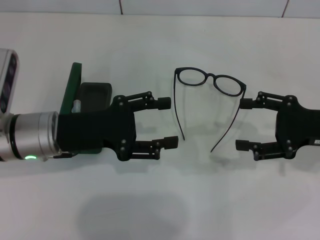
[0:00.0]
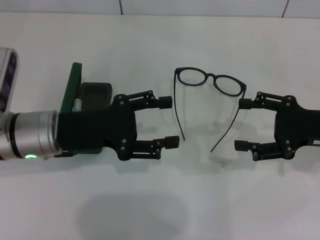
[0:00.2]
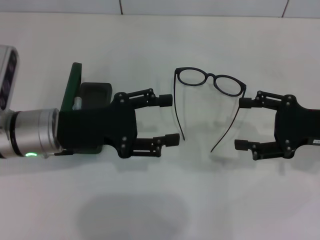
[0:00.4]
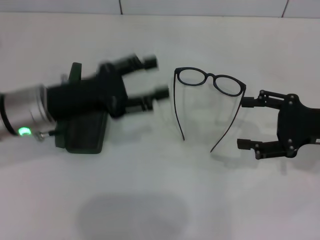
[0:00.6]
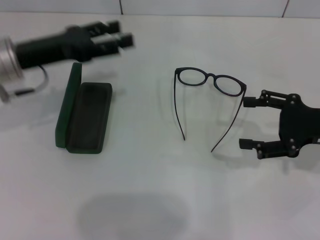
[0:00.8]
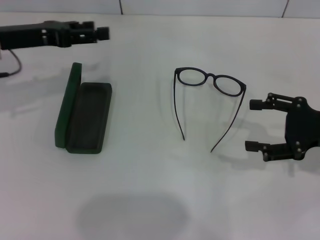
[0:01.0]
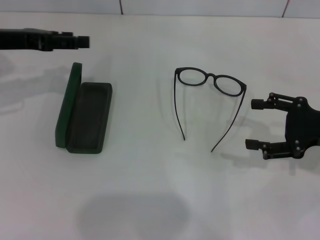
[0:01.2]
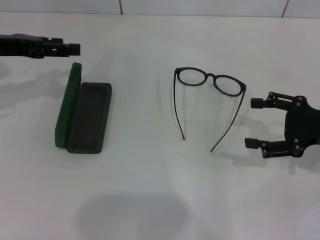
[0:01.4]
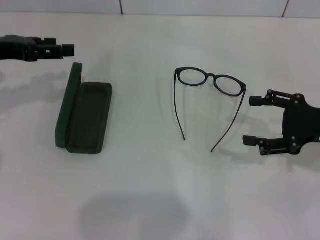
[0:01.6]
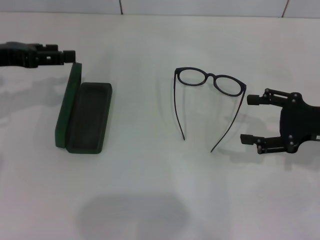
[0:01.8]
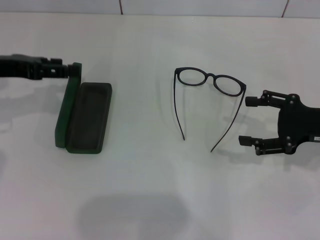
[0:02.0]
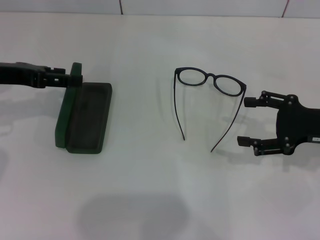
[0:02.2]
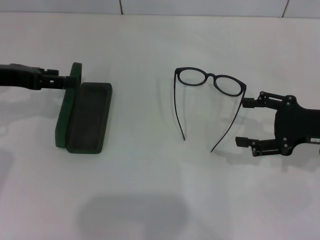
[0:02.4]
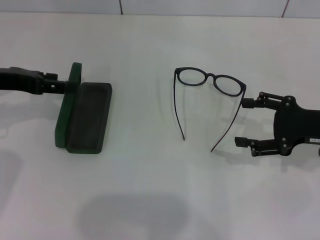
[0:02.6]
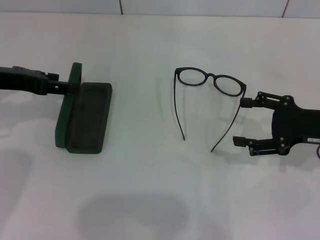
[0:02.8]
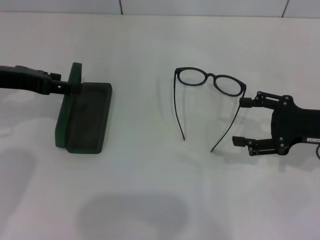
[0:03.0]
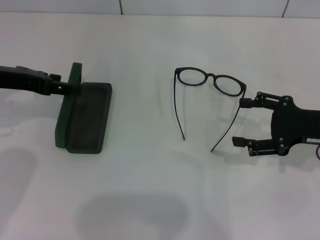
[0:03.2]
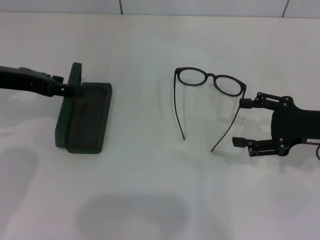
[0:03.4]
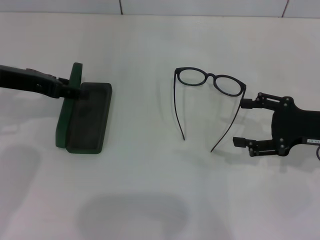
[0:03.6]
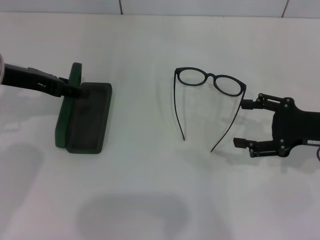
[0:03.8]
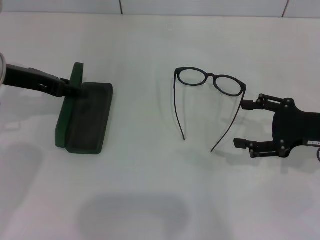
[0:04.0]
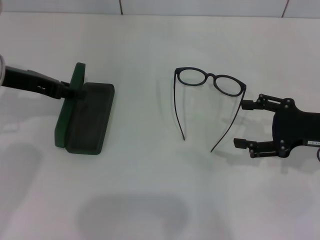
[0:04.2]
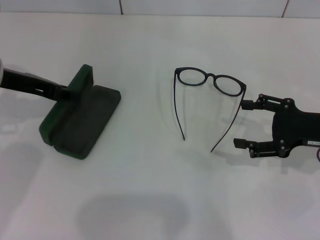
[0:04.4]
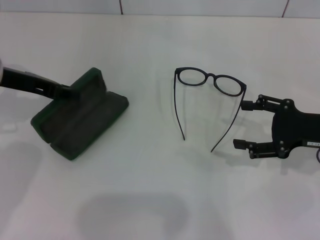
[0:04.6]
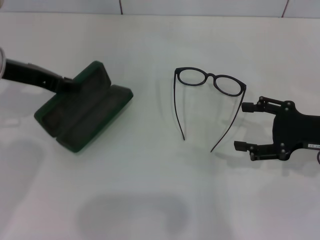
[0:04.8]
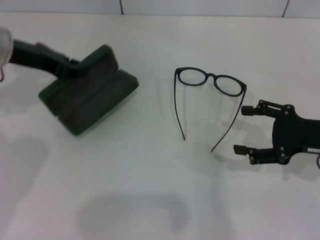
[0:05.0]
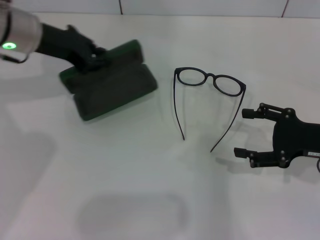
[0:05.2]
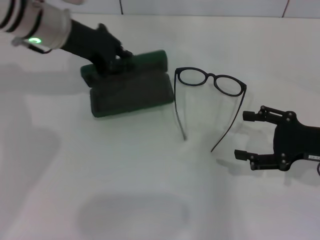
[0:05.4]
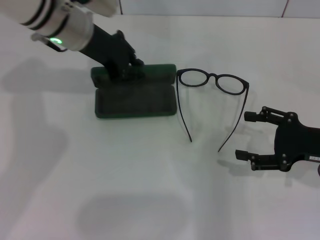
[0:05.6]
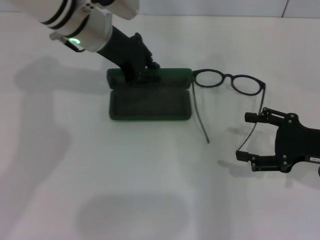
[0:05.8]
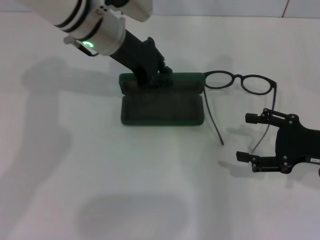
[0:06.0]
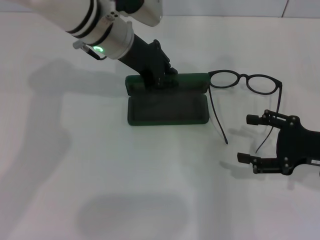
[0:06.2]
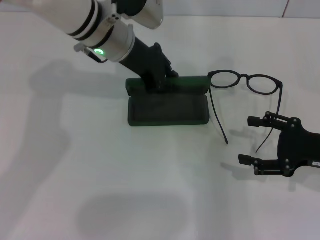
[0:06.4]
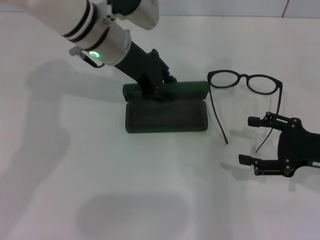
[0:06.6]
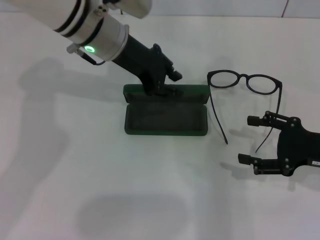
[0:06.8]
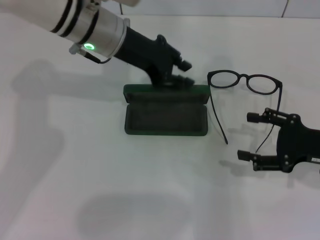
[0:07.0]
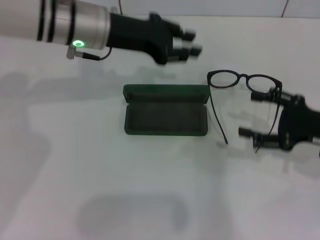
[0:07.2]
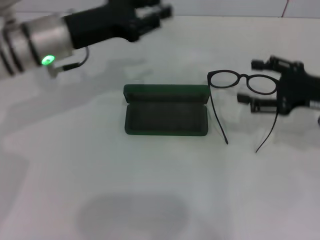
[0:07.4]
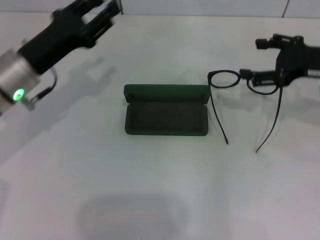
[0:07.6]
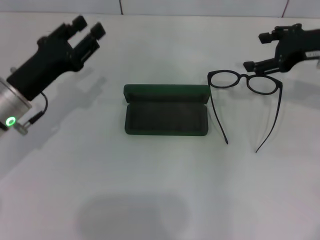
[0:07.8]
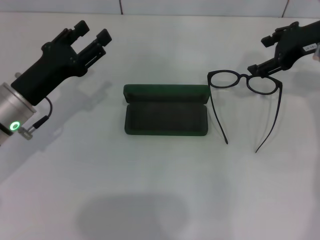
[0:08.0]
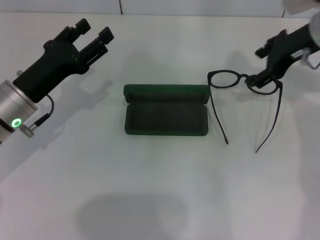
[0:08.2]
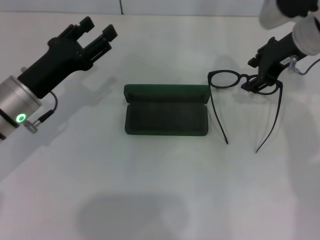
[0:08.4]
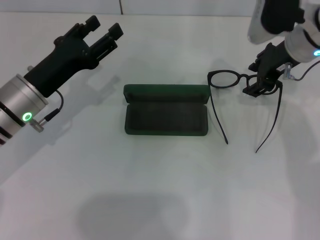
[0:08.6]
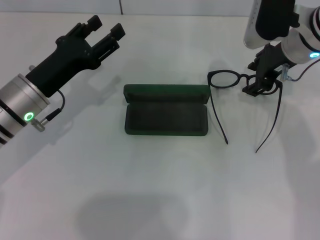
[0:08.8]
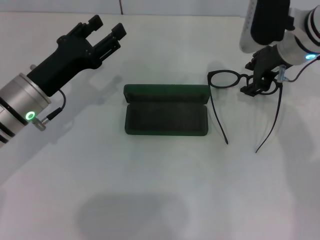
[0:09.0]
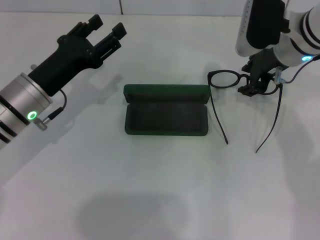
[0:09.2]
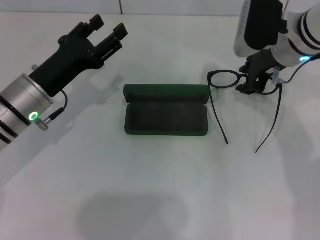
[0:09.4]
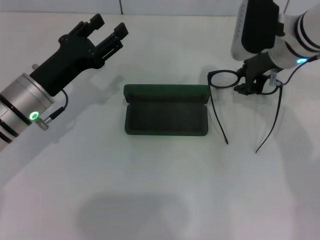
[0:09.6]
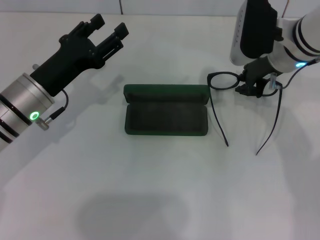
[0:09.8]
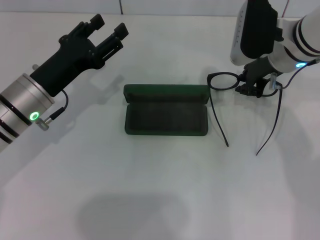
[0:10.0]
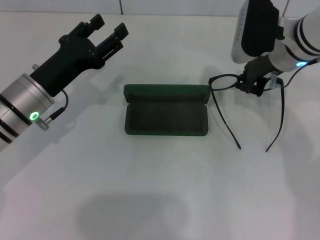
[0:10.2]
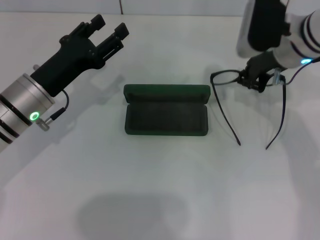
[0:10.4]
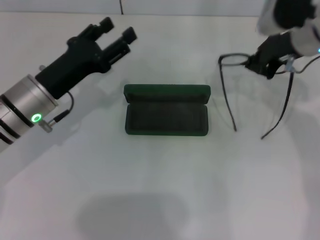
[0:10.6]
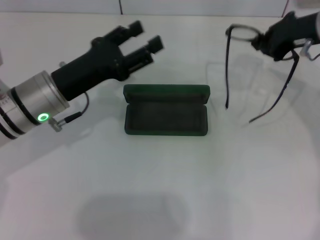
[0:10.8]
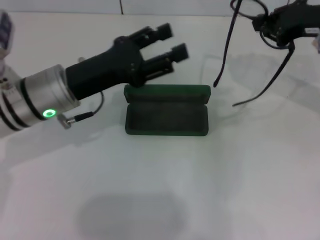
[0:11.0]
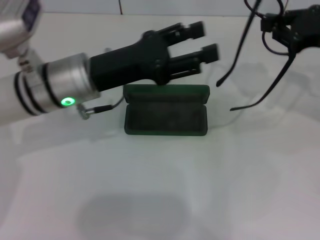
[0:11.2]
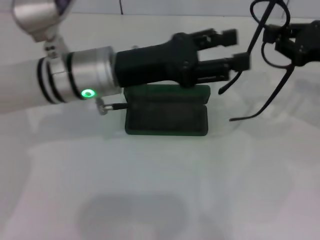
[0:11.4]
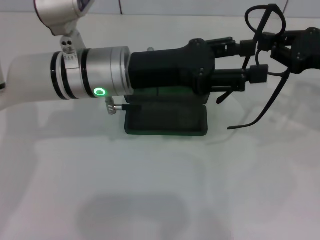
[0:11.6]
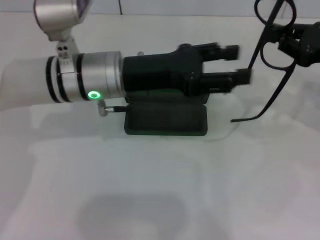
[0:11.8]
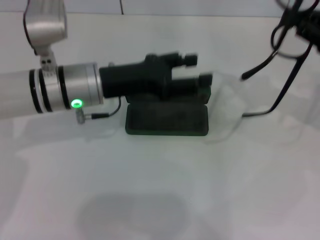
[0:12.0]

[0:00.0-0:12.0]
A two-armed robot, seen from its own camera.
Step, 0:00.0 to 0:04.2: Grab the glasses case with your left hand.
Step, 0:04.6 to 0:06.8: Place the glasses case in the center of the table with your left hand.
Step, 0:07.0 to 0:10.0: Grab the eyeglass frame with your right hand.
0:00.0 to 0:01.6: The left gripper travels to the left, upward and forward by about 15 cm.
0:01.6 to 0:03.0: The grippers stay close to where they were, moving slightly.
0:03.0 to 0:04.4: The grippers make only small movements.
0:04.4 to 0:06.0: The left gripper goes approximately 15 cm to the right, and closes its fingers.
0:06.0 to 0:07.6: The left gripper travels to the left, backward and downward by roughly 15 cm; the right gripper shifts some 10 cm forward and upward.
0:07.6 to 0:09.0: The left gripper opens. Meanwhile the right gripper is displaced to the left and forward by roughly 10 cm.
0:09.0 to 0:10.4: The right gripper closes.
0:10.4 to 0:12.0: The right gripper shifts roughly 15 cm to the right and backward; the left gripper shifts some 5 cm to the right.

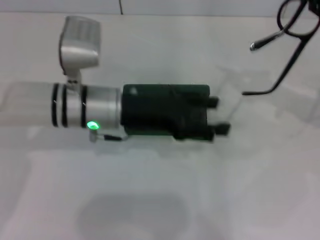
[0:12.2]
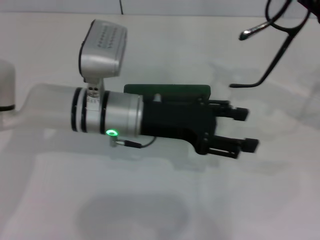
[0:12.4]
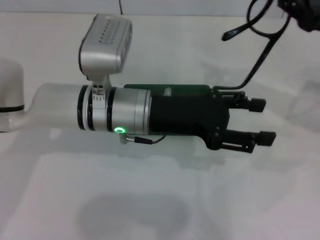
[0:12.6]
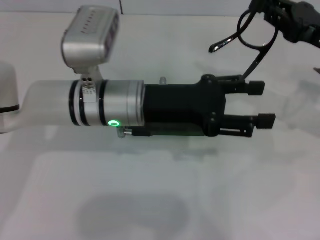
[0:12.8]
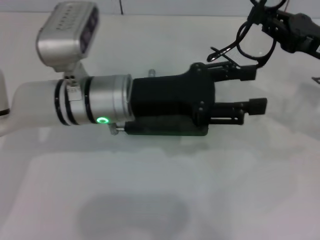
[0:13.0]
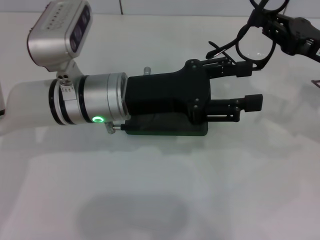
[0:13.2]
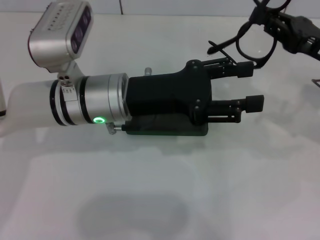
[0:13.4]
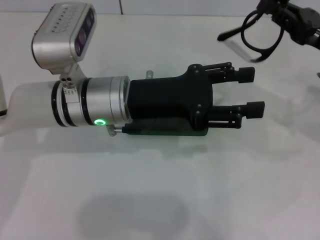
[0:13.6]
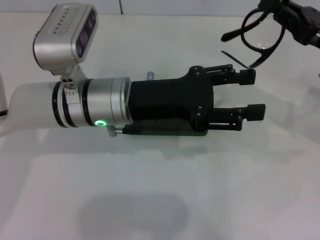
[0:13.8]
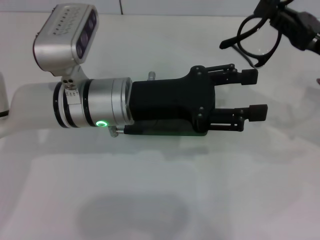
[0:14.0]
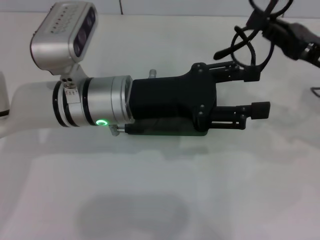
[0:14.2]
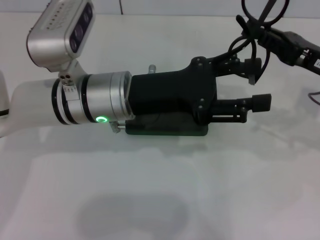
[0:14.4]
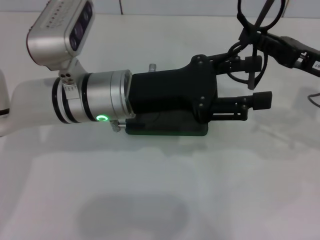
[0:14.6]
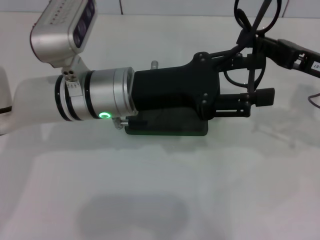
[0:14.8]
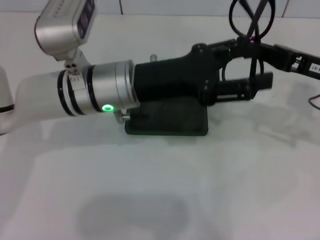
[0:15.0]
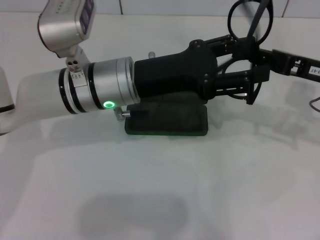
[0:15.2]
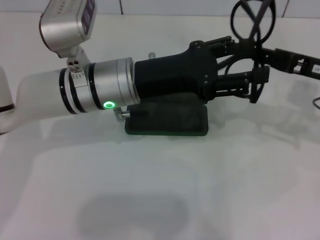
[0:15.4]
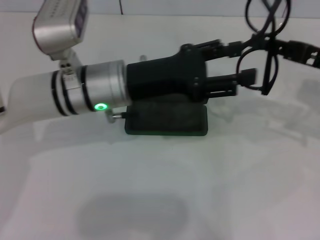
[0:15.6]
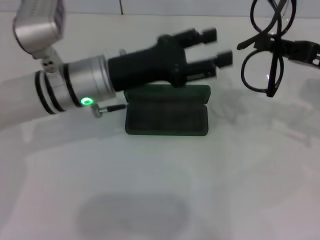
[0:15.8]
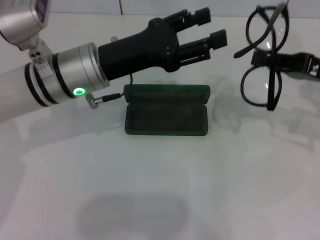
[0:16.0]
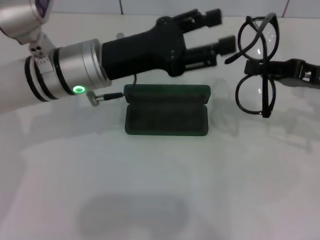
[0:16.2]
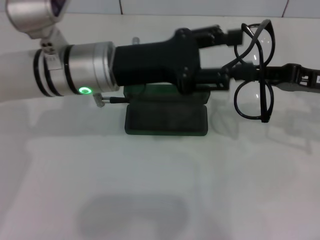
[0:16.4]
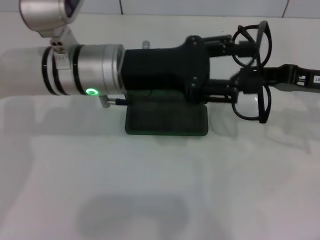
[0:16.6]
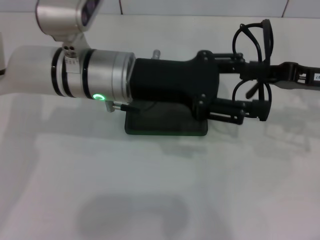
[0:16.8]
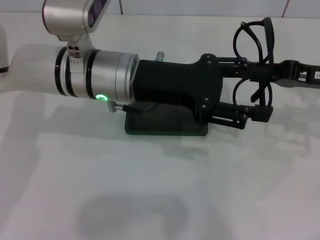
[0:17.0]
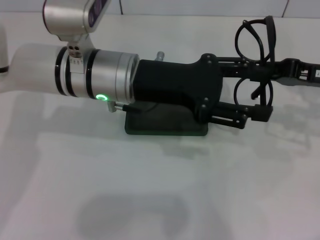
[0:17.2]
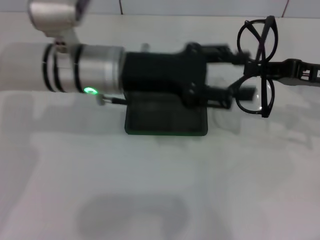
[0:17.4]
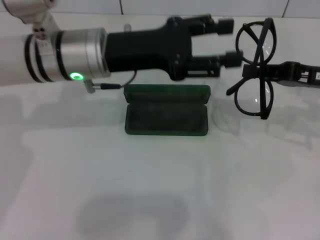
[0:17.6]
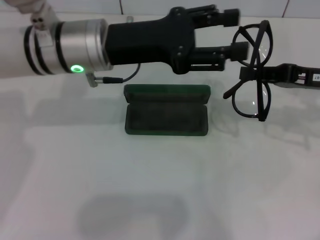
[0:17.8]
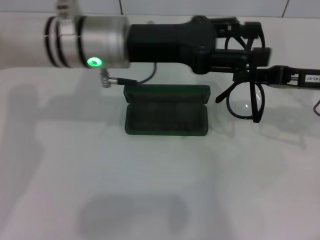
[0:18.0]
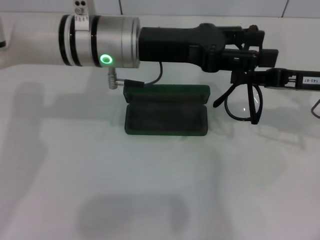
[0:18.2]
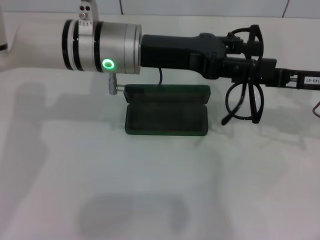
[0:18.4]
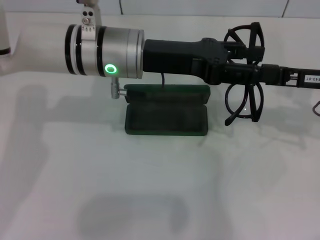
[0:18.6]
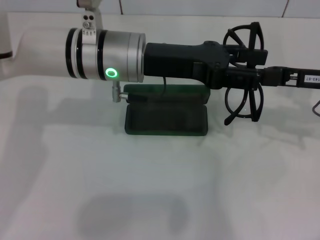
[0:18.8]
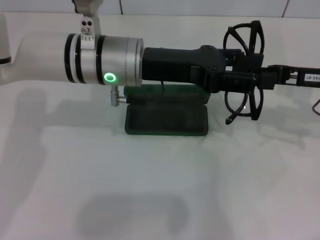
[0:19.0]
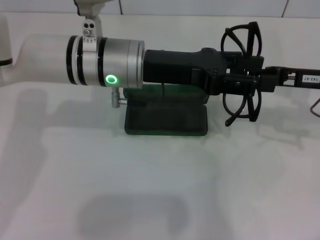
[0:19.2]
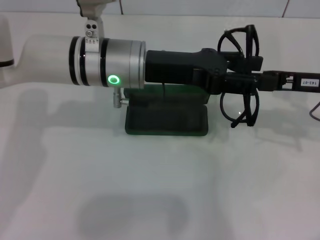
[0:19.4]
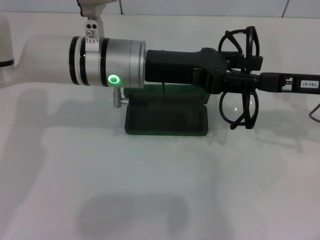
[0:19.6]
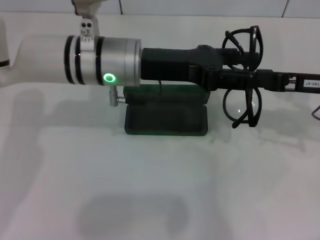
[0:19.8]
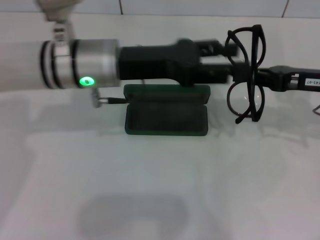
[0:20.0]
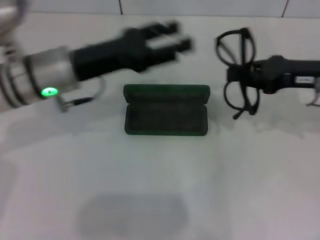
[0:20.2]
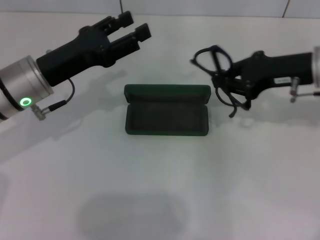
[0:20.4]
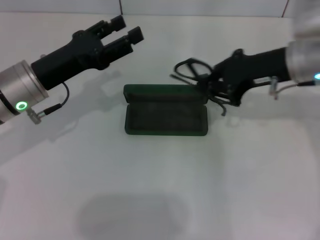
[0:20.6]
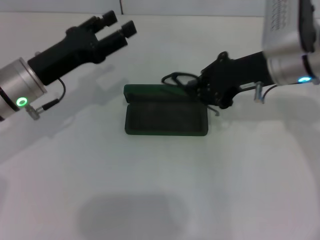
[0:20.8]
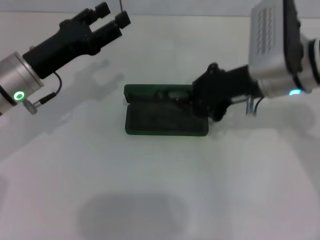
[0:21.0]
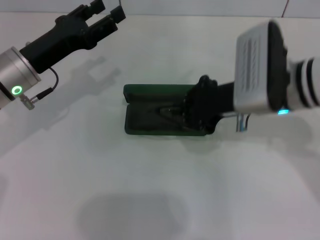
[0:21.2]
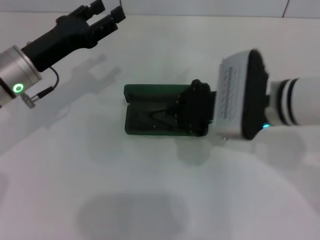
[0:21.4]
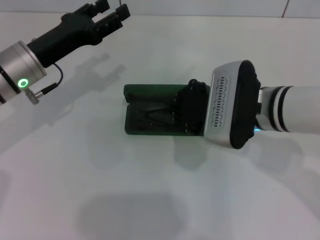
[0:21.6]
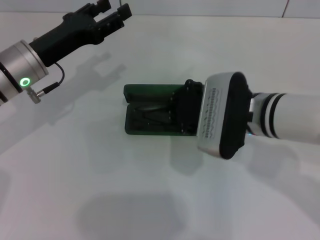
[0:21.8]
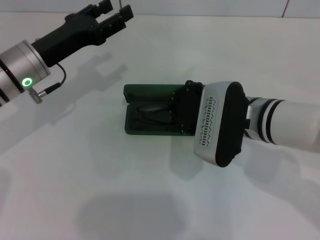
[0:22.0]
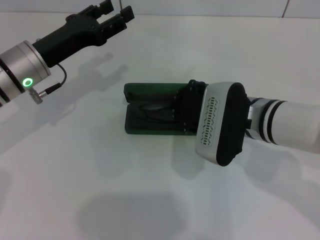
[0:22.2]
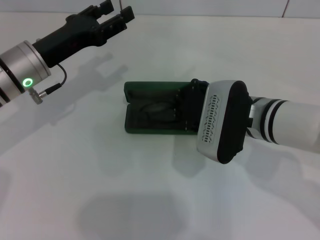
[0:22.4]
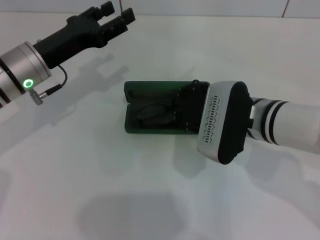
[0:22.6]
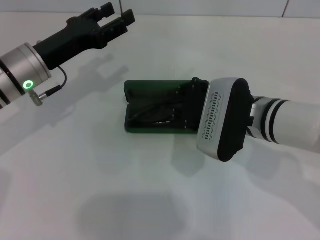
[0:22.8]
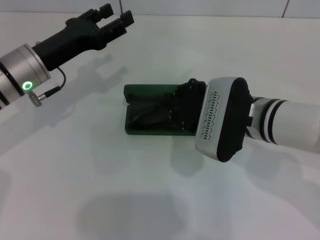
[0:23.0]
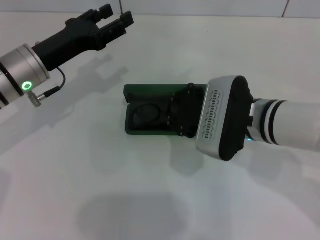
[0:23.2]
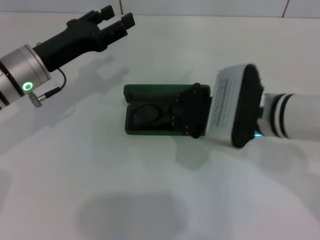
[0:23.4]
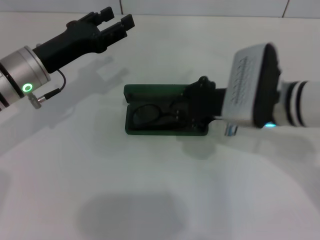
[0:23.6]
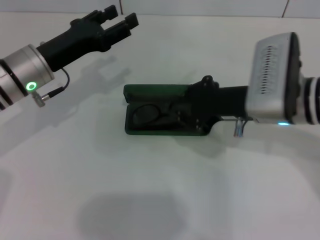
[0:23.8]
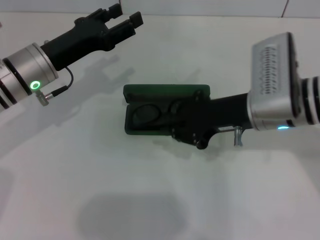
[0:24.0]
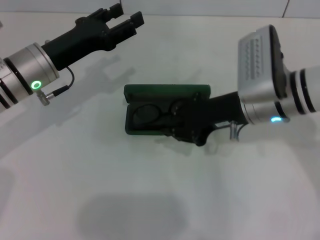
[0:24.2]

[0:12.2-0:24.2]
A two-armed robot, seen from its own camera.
Step, 0:12.2 to 0:19.0: Fold the frame with your left hand.
0:12.2 to 0:13.8: The right gripper changes place by approximately 5 cm.
0:15.2 to 0:16.6: The grippers stay close to where they were, moving slightly.
0:18.2 to 0:19.8: There are only small adjustments of the grippers.
0:19.8 to 0:21.2: The grippers both shift to the left by roughly 15 cm.
0:21.2 to 0:22.6: The right gripper moves downward, approximately 5 cm.
